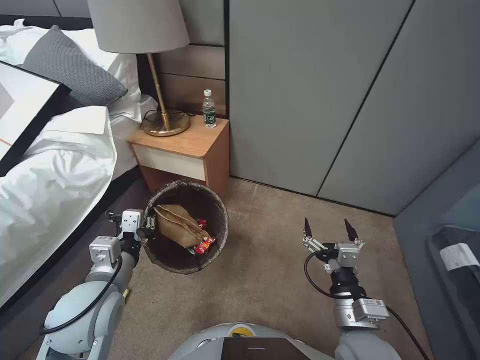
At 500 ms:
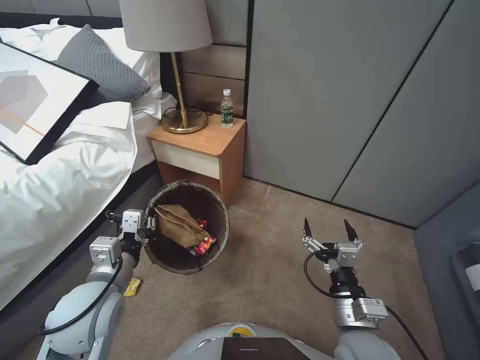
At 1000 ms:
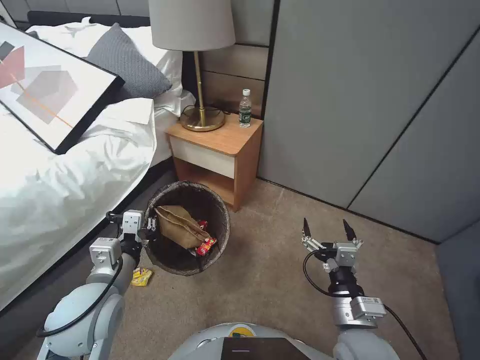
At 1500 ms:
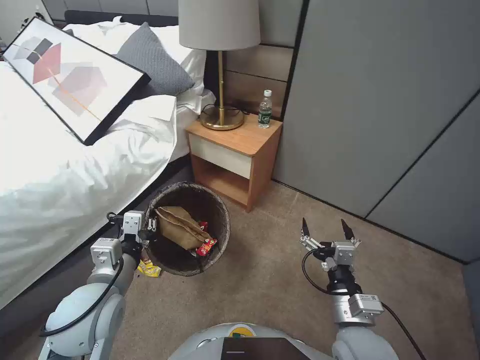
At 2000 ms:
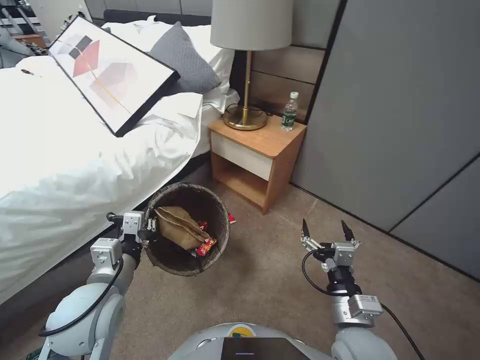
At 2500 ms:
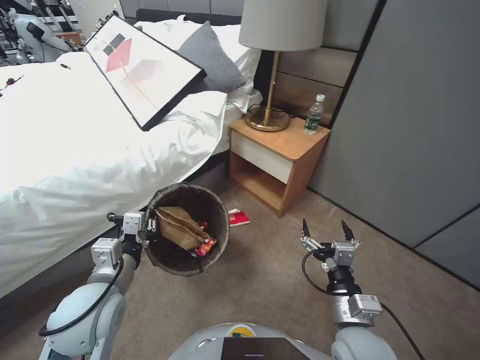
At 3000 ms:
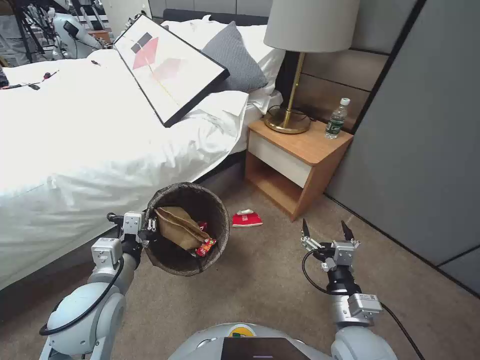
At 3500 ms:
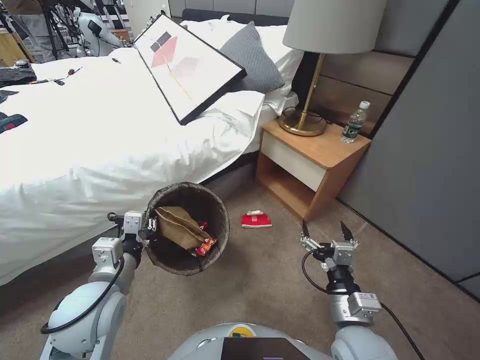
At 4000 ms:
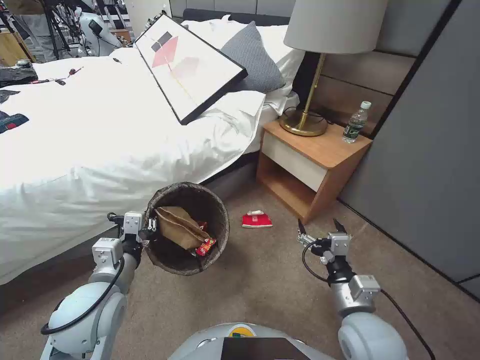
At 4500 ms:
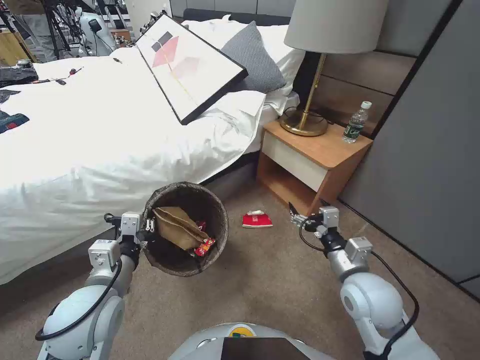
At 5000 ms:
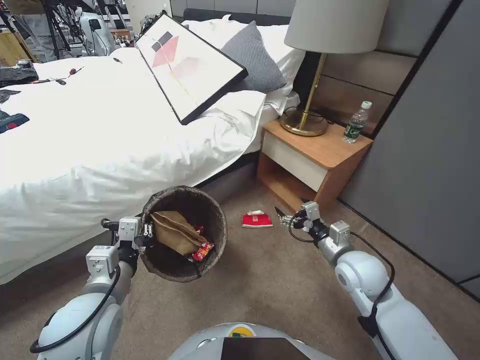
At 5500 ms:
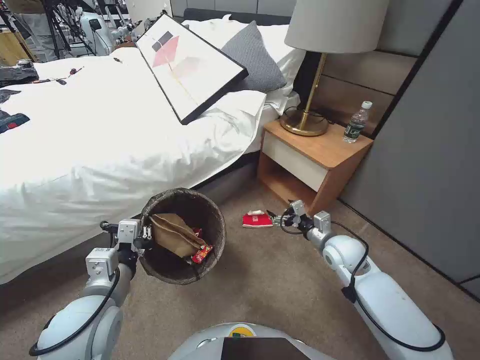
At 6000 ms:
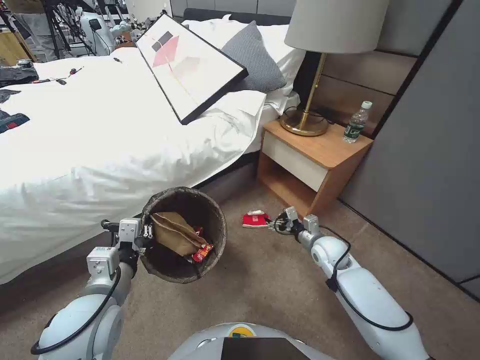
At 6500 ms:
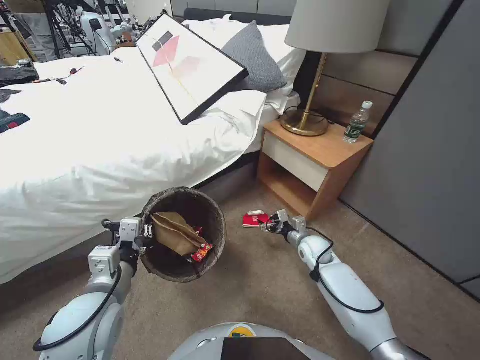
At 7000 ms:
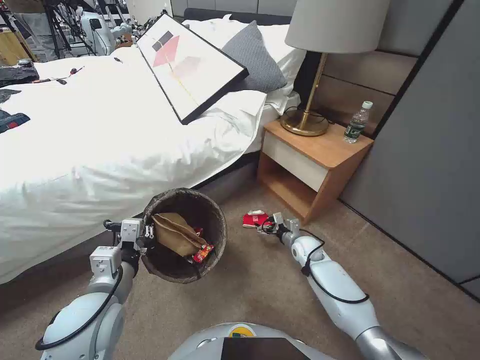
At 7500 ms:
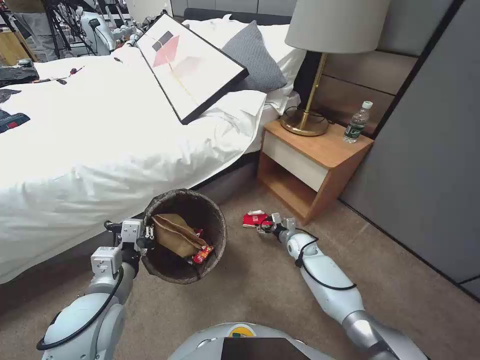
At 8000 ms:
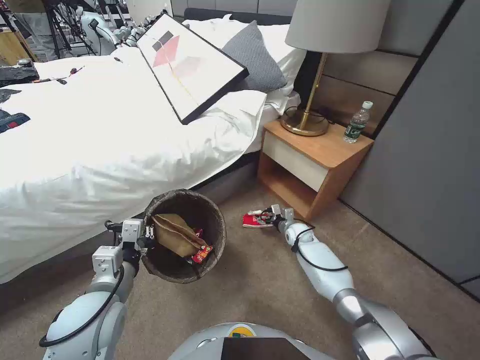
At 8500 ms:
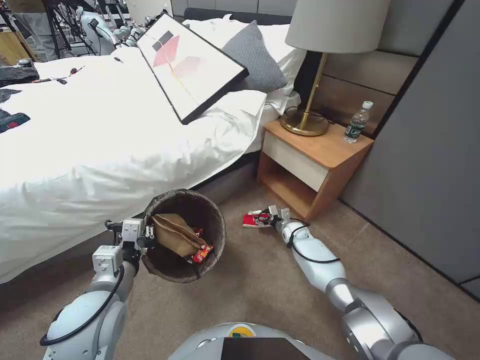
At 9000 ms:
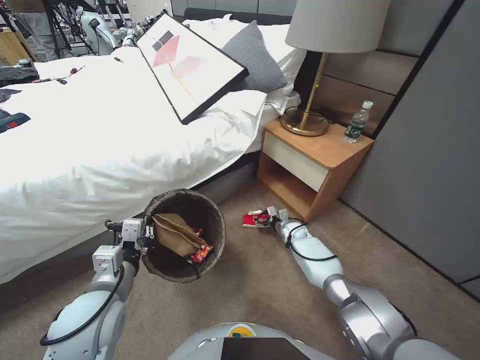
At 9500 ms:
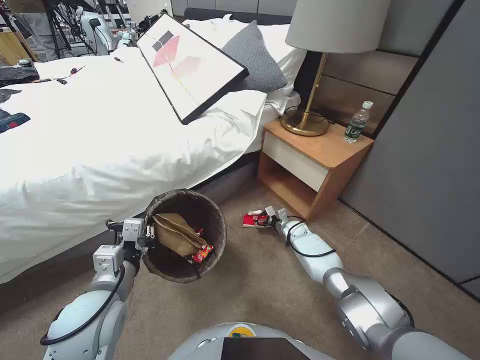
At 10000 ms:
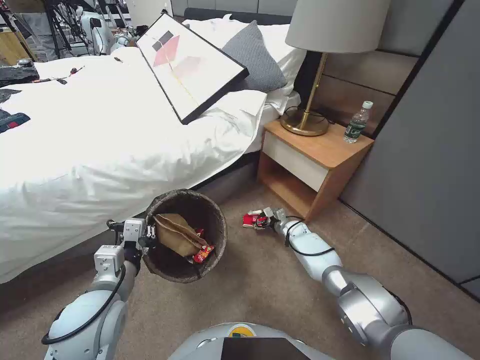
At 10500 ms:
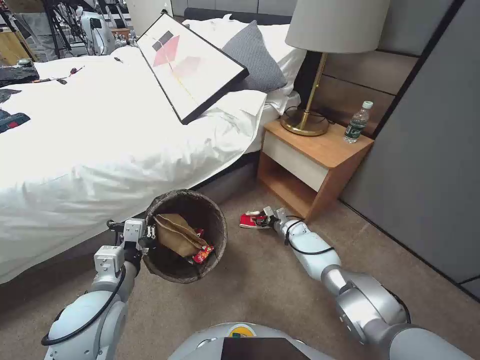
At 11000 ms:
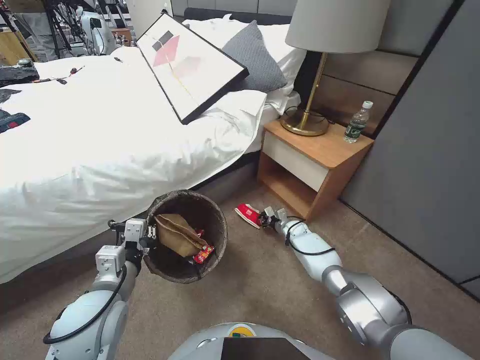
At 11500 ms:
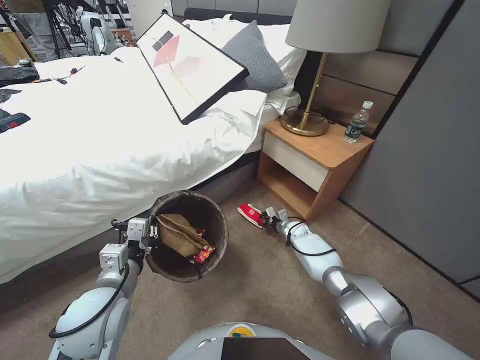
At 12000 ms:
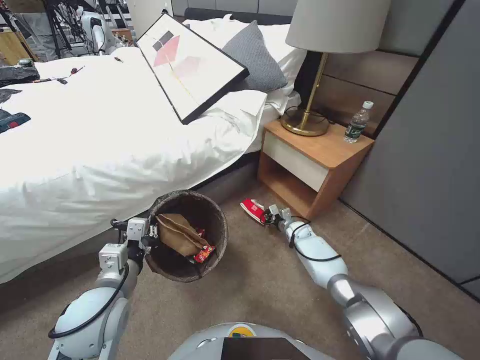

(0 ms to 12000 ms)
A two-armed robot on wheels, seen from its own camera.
Task of the whole recording: Pick up the trash bin, then pick up the garbage from the floor and place it into the trash bin.
4000 ms - 6000 ms: The right gripper heads forward, covering roughly 20 cm.
6000 ms - 8000 ms: The right gripper is displaced downward and forward by some 15 cm.
8000 ms - 10000 ms: The grippers move only a little.
10000 ms - 12000 ms: The right gripper closes up.

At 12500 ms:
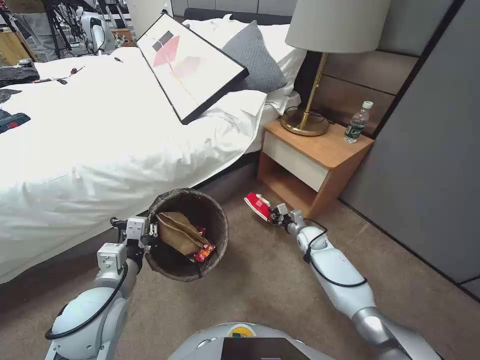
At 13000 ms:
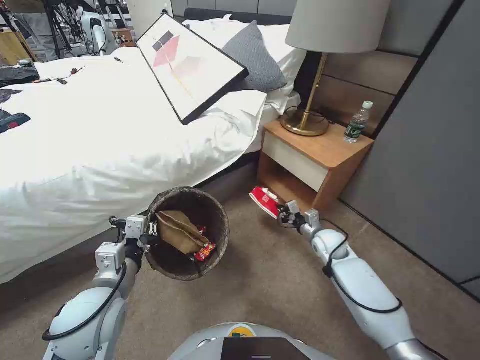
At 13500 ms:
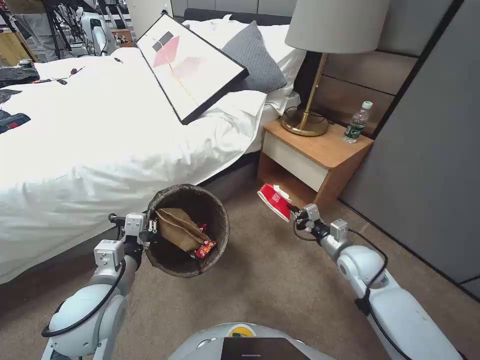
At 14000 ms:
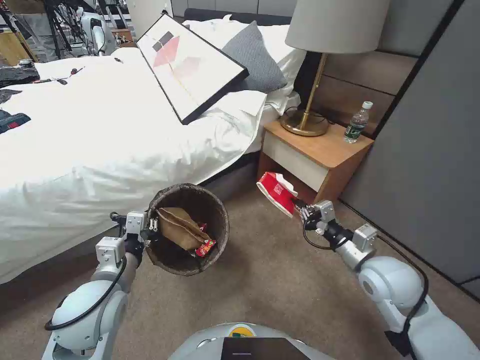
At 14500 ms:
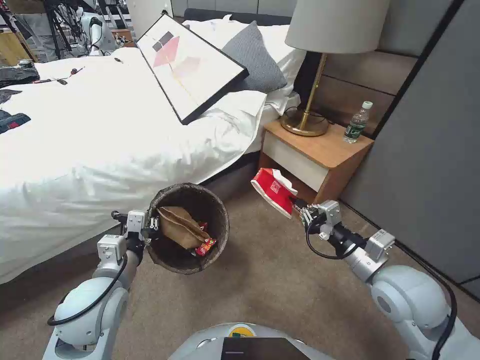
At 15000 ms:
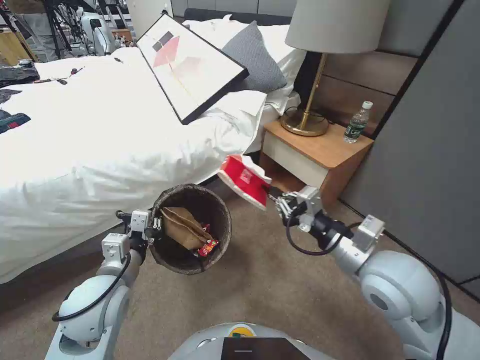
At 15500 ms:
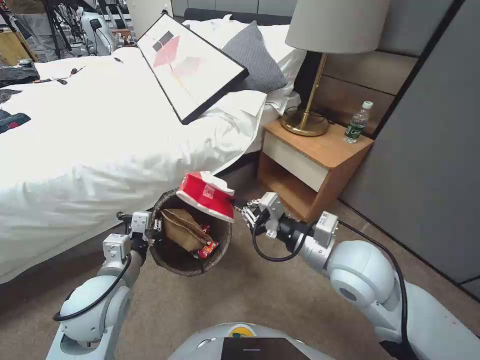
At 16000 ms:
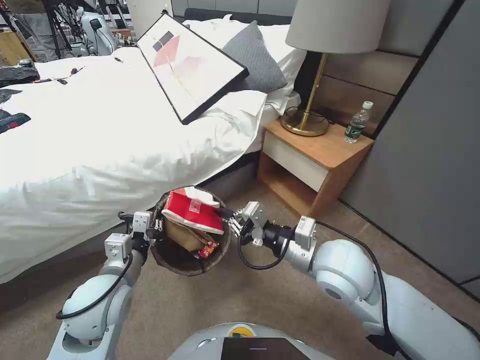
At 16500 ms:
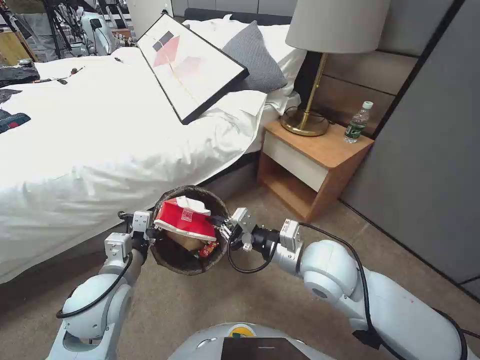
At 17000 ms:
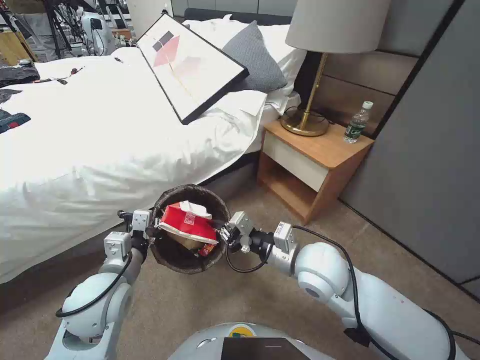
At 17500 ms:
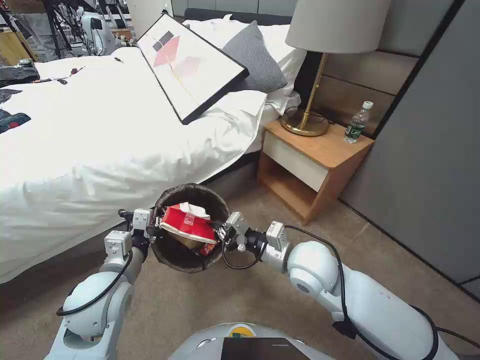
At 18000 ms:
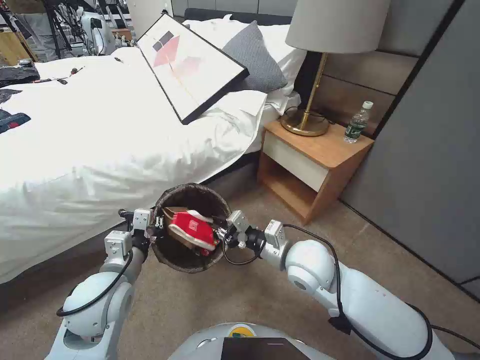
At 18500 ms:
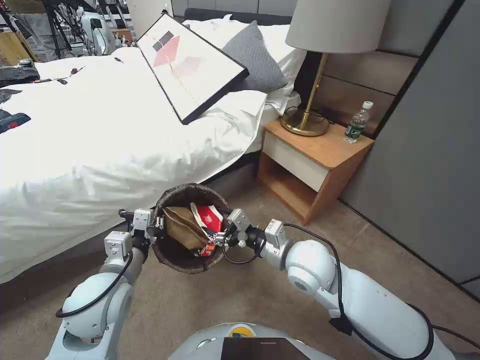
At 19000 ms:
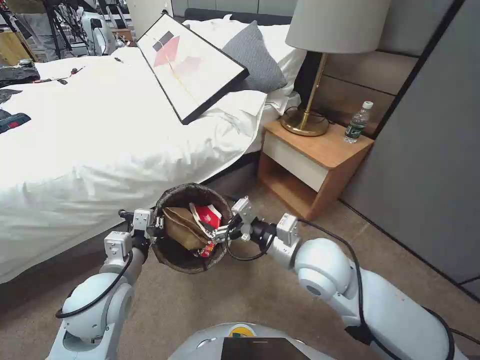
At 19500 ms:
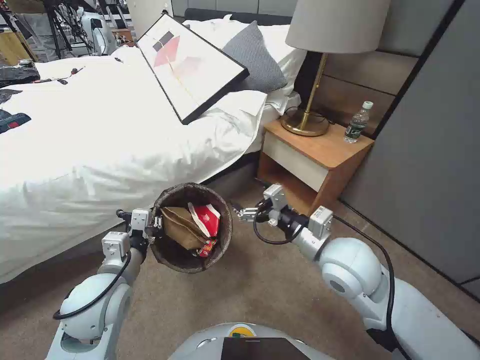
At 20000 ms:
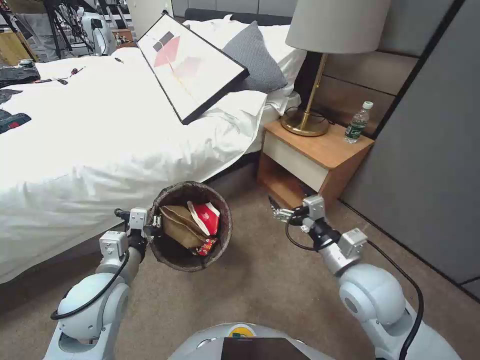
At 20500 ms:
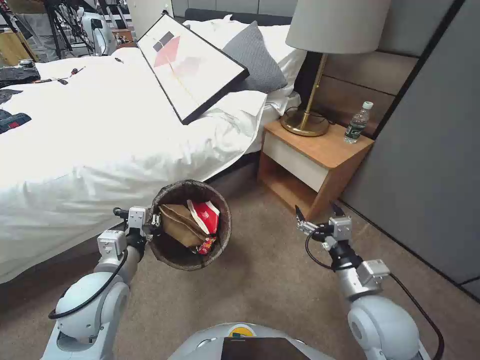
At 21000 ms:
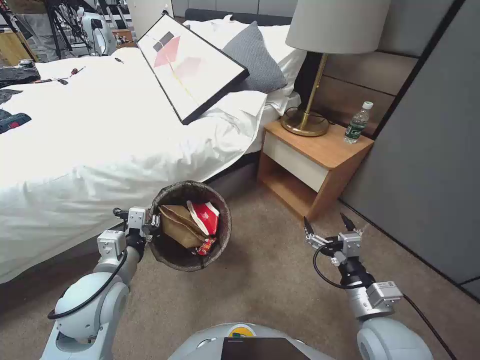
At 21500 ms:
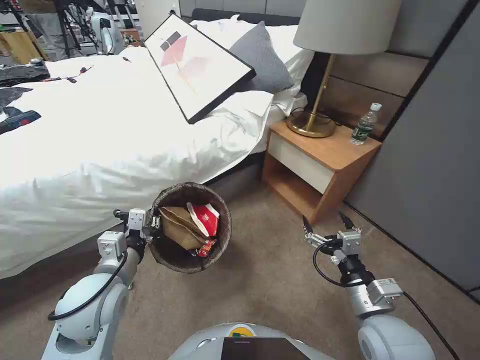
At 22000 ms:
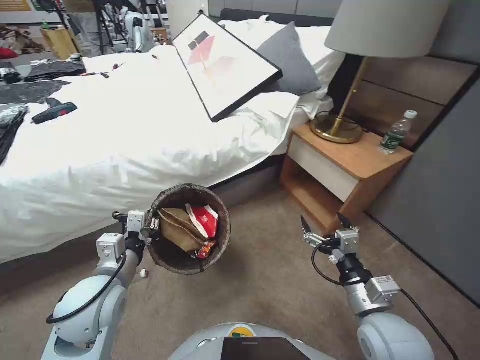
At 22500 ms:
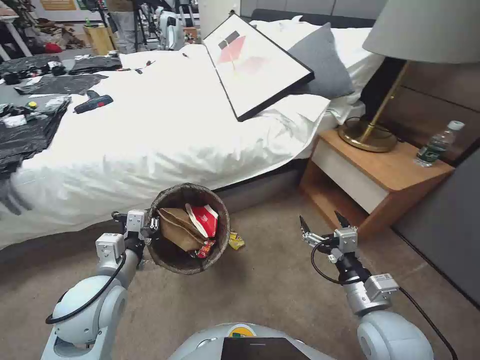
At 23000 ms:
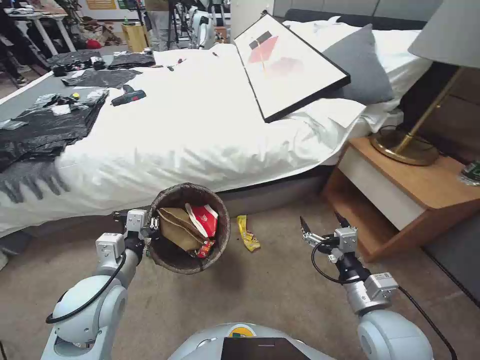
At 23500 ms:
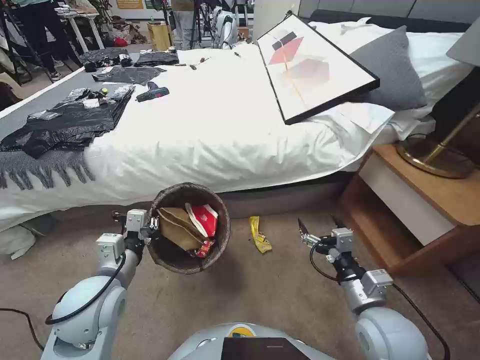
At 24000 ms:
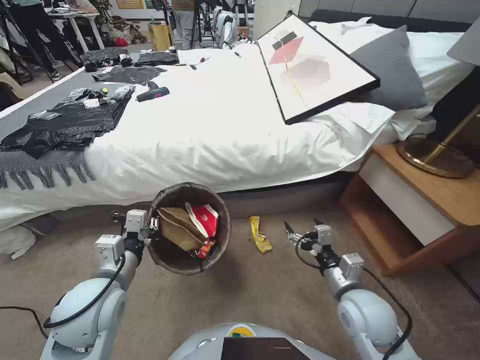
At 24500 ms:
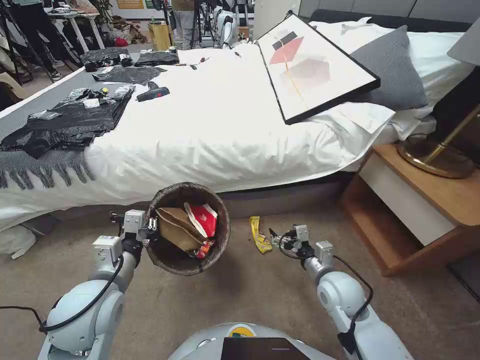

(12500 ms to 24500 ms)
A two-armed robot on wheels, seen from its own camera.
Task of the whole recording: Pick up the trash bin, then pick up the garbage from the floor and place it into the trash bin.
12500 ms - 14500 ms: The right gripper travels upward and backward by some 35 cm.
14500 ms - 16500 ms: The right gripper moves to the left, some 15 cm.
16500 ms - 18500 ms: The right gripper opens.
18500 ms - 20500 ms: The right gripper moves to the right and backward, some 15 cm, and opens.
22500 ms - 24500 ms: The right gripper heads forward and downward, covering some 10 cm.

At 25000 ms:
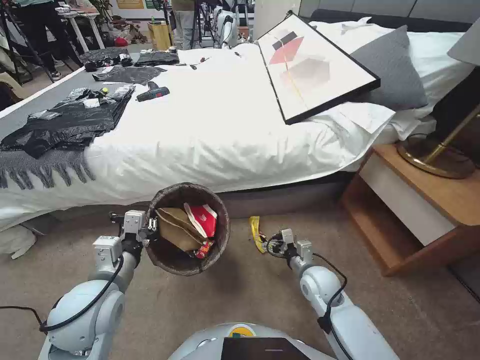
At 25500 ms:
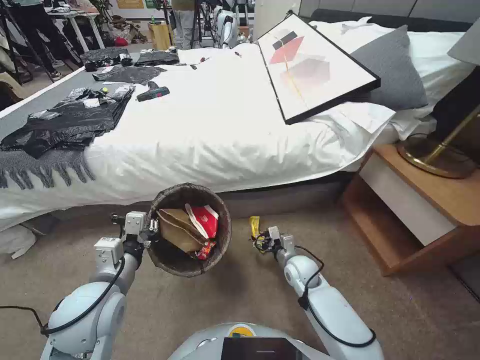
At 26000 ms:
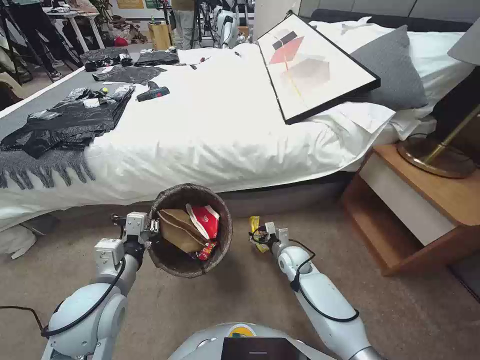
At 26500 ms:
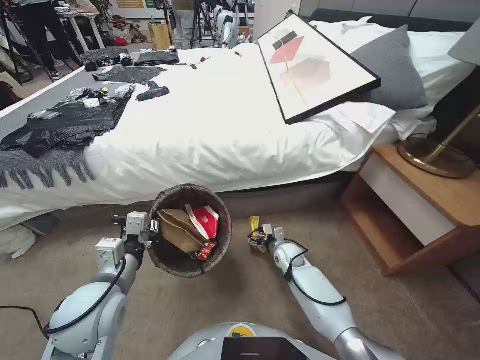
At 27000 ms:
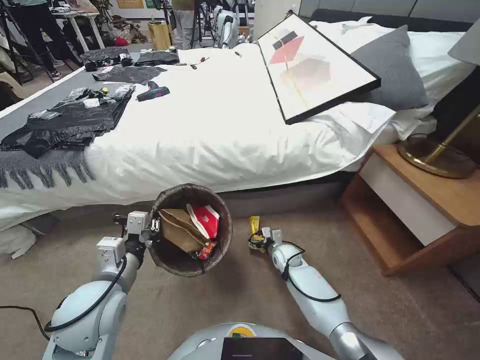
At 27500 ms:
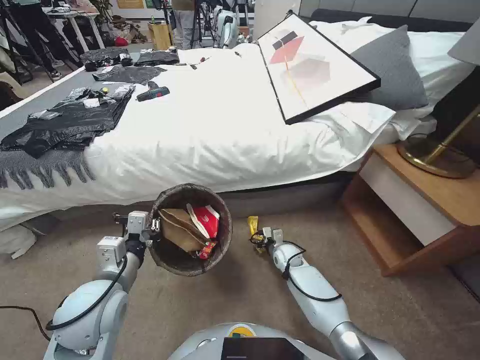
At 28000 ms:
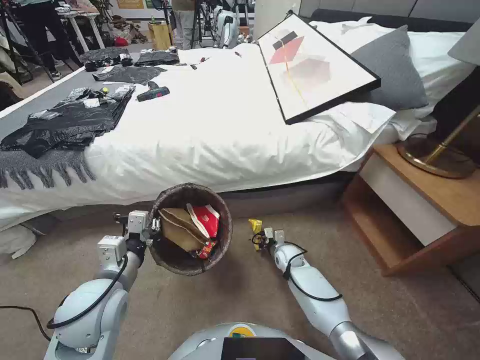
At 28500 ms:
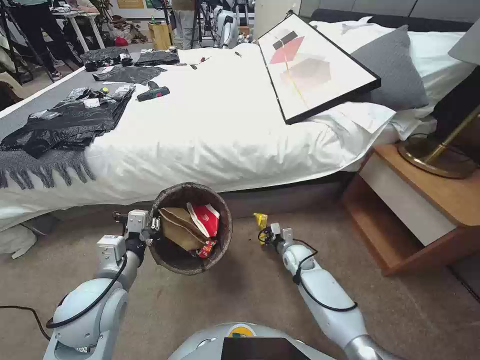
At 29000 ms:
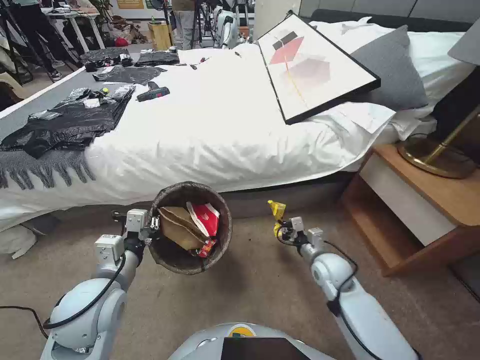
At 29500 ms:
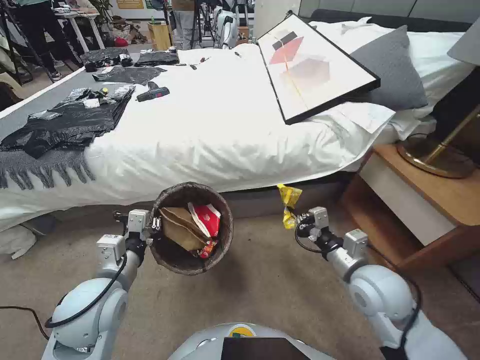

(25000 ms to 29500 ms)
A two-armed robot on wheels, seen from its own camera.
Task of the whole recording: Pick up the trash bin, then pick up the garbage from the floor and place it into the trash bin.
25000 ms - 27000 ms: The right gripper moves forward and downward, about 15 cm.
27000 ms - 29500 ms: The right gripper is displaced upward and backward by about 30 cm, and closes its fingers.
